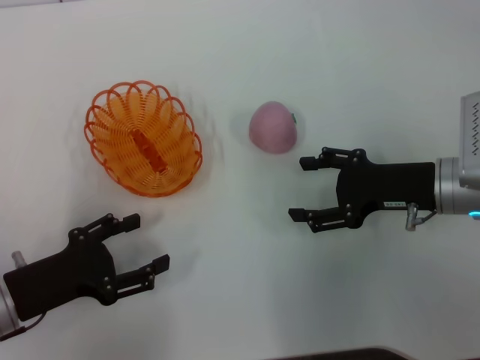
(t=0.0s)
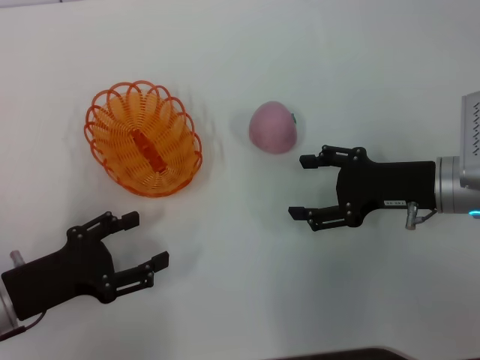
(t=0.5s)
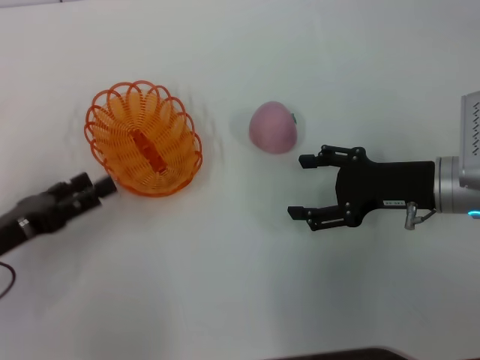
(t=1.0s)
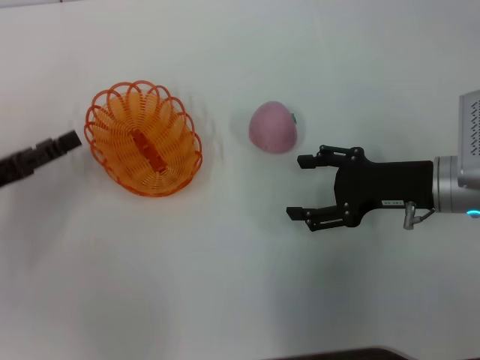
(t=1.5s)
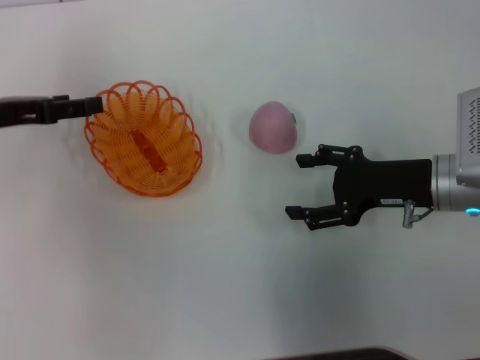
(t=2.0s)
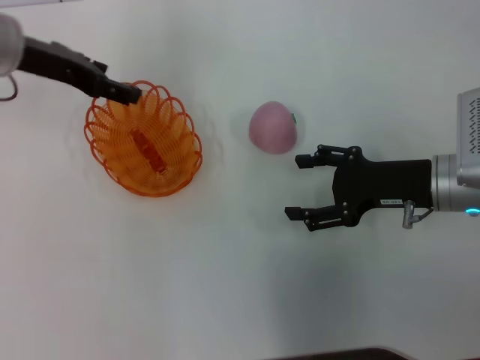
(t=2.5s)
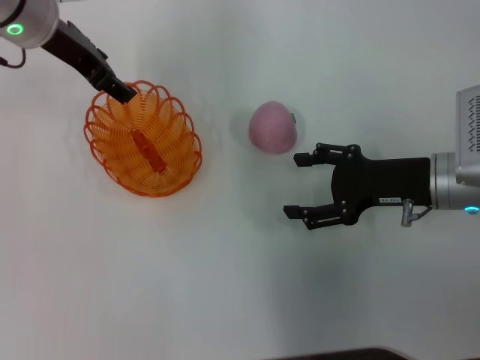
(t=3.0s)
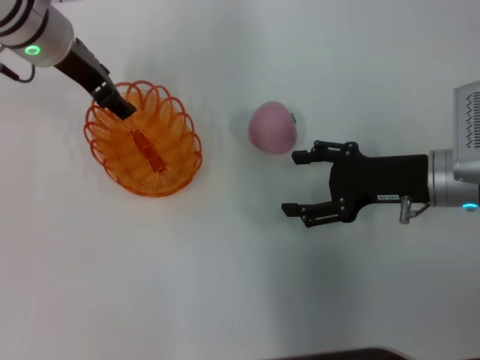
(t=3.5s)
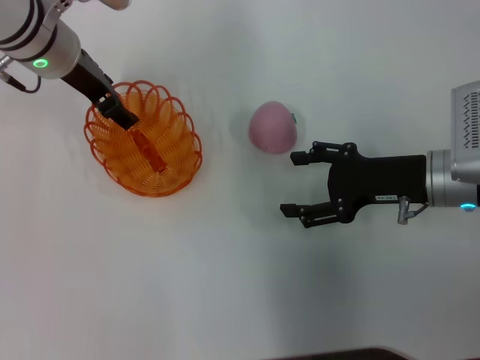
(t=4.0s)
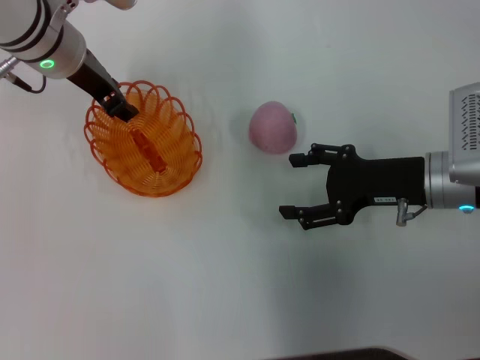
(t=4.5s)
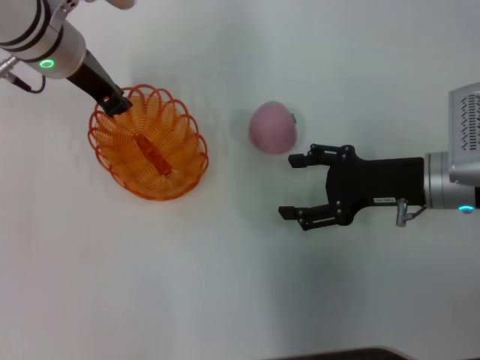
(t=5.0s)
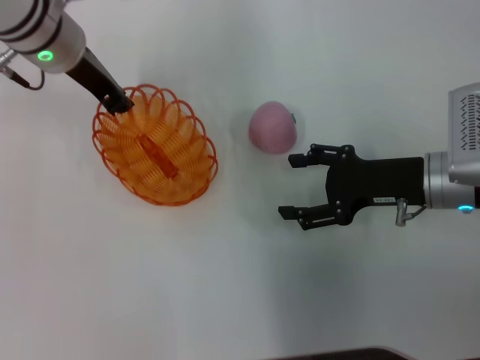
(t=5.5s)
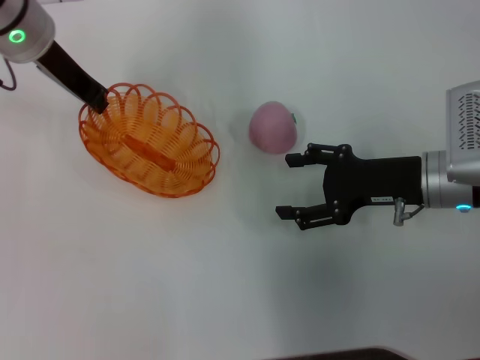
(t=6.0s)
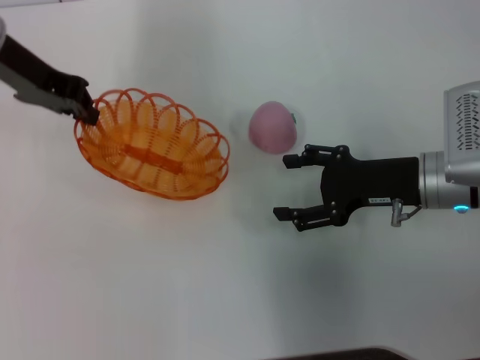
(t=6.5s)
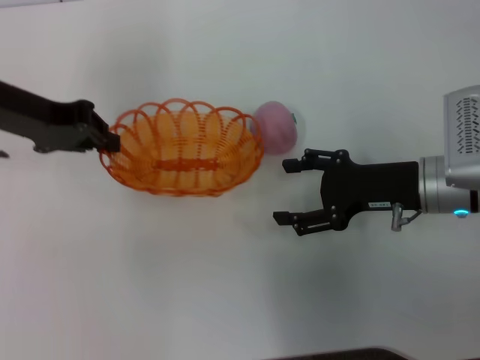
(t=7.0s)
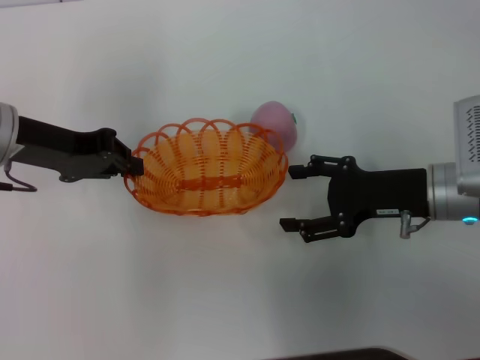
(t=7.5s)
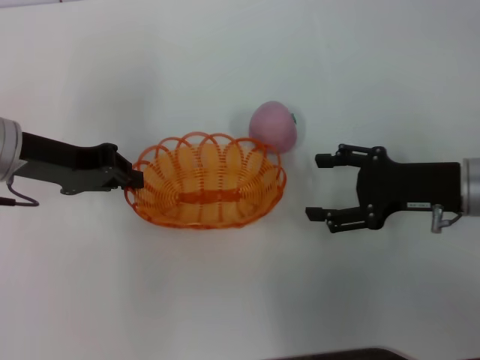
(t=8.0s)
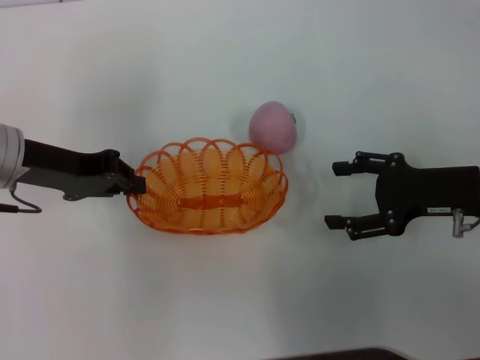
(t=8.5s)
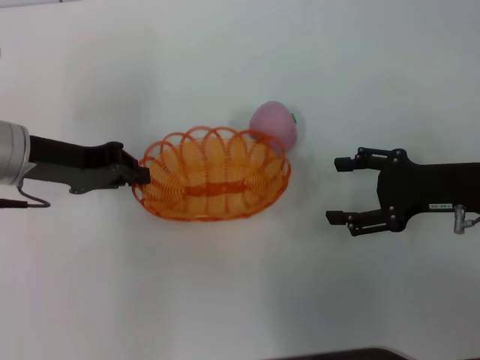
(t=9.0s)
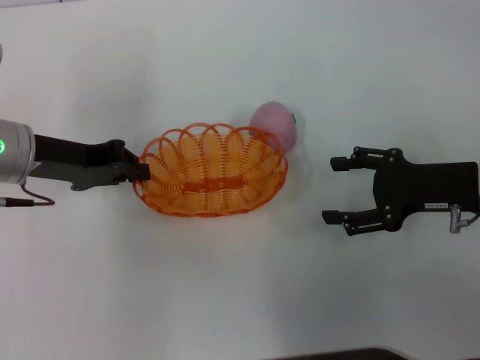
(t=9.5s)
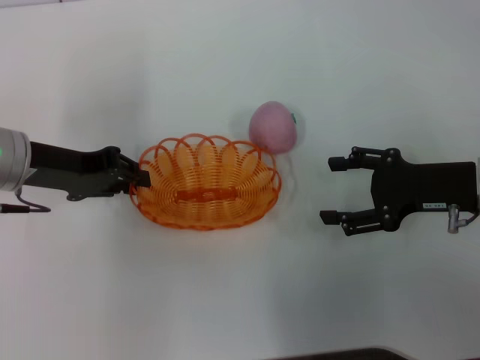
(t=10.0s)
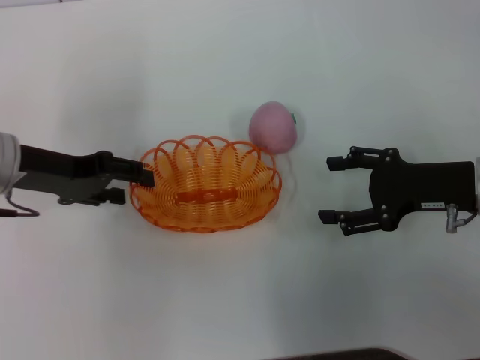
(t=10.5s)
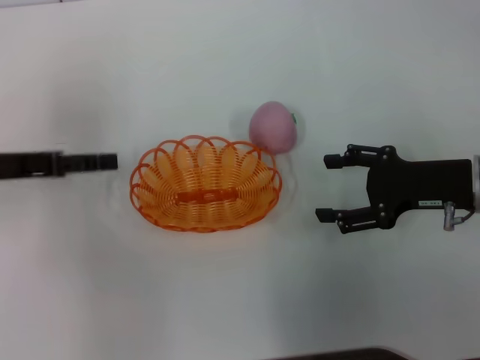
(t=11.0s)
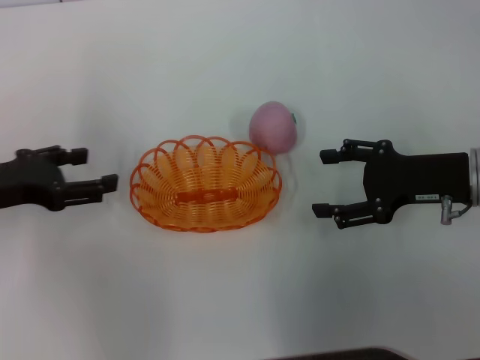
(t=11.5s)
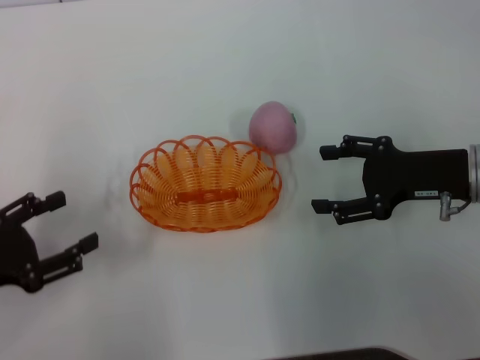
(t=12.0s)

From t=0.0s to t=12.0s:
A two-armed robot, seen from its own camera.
Step, from t=0.0s to t=6.0s: Pick up the basket with the left gripper.
Step, from t=6.5s to t=10.5s: Place the basket in the center of view with the left gripper.
From t=0.0s to t=2.0s: The left gripper travels forward and upward by about 20 cm.
From t=2.0s to t=4.0s: The left gripper heads to the right and forward, covering some 15 cm.
From t=4.0s to t=6.0s: The left gripper closes.
From t=6.0s to t=8.0s: The left gripper shifts approximately 10 cm backward, to the left and downward.
From t=8.0s to t=10.0s: The grippers stay close to where they were, moving slightly.
From t=10.0s to t=12.0s: The left gripper goes about 15 cm backward and to the left, and opens its fingers.

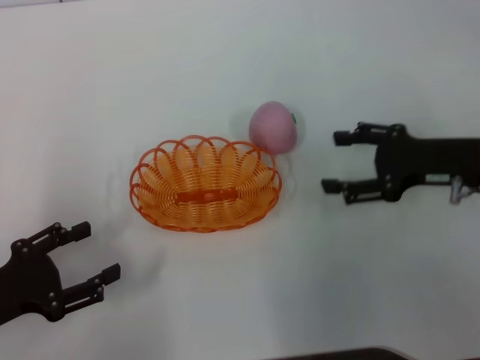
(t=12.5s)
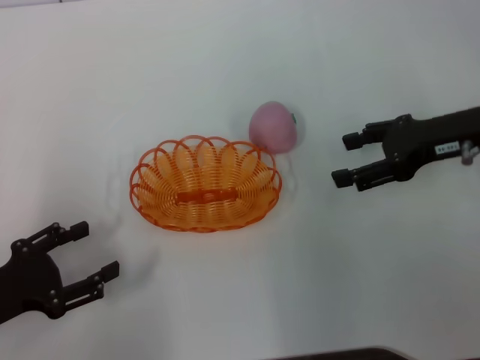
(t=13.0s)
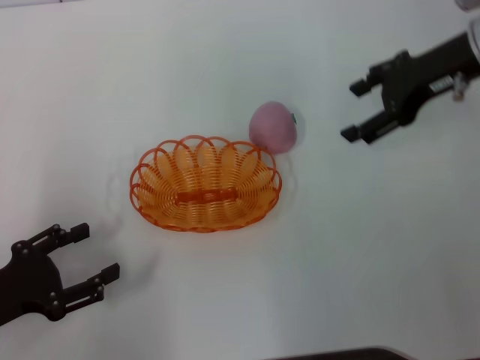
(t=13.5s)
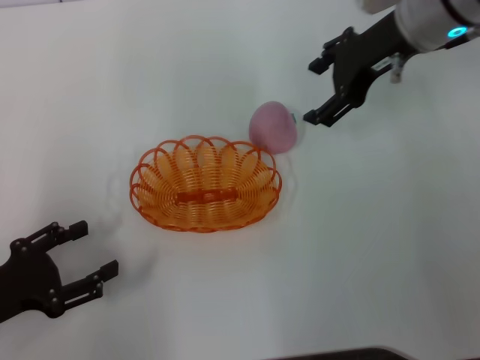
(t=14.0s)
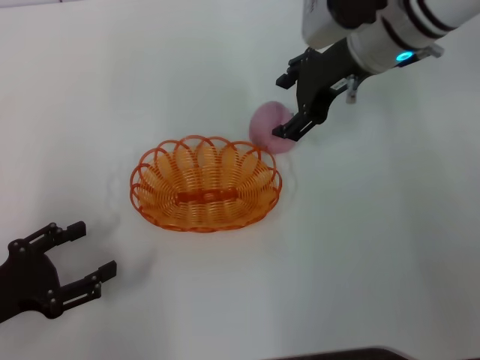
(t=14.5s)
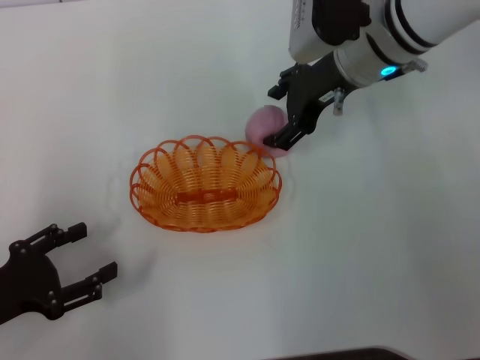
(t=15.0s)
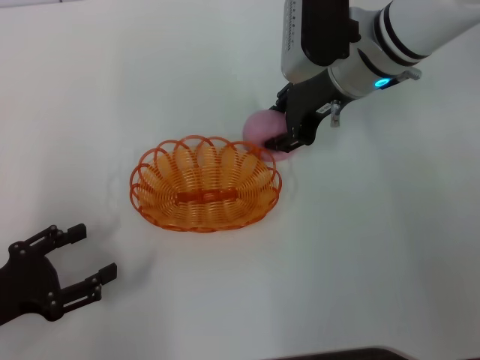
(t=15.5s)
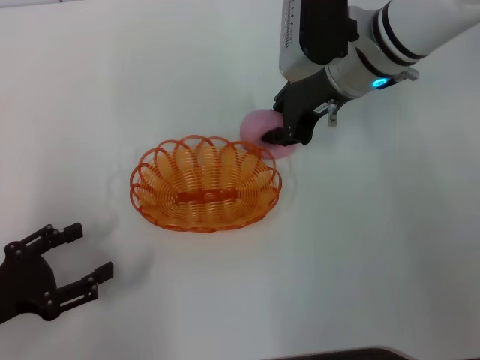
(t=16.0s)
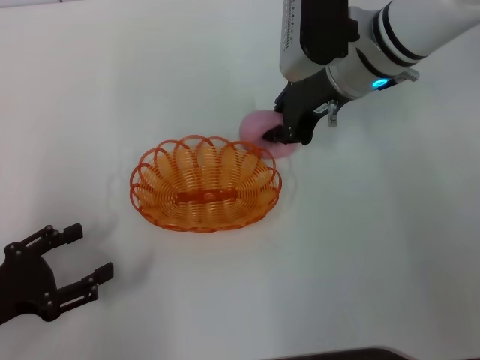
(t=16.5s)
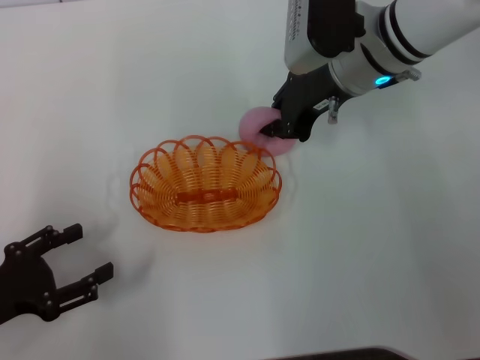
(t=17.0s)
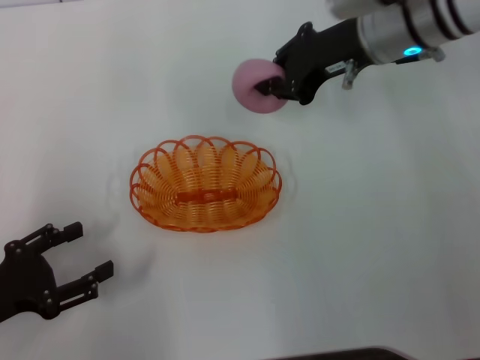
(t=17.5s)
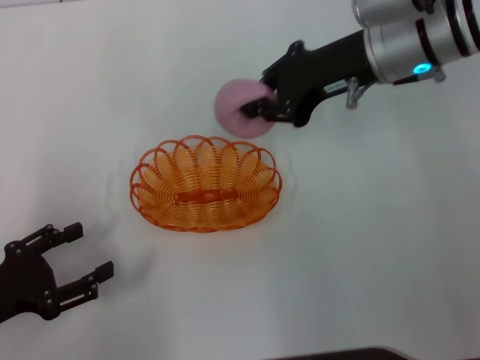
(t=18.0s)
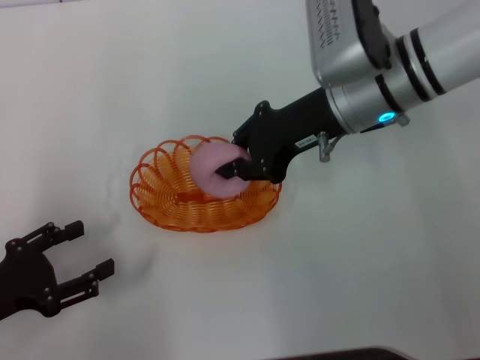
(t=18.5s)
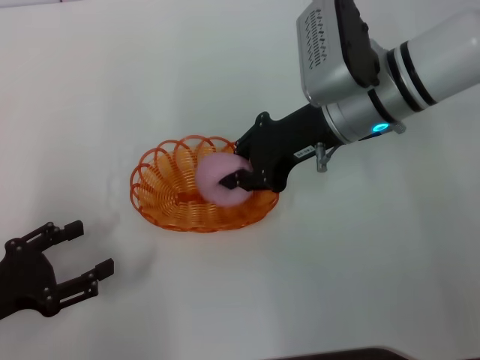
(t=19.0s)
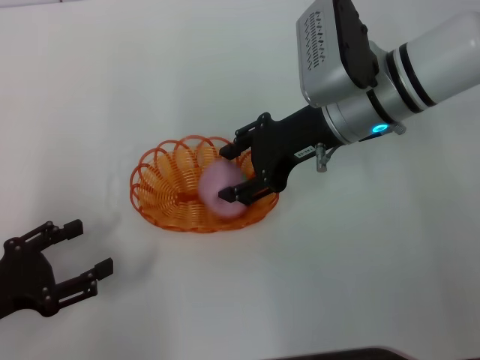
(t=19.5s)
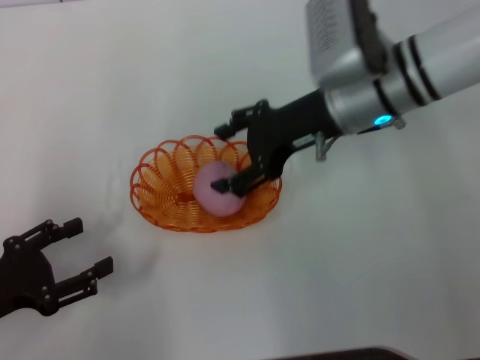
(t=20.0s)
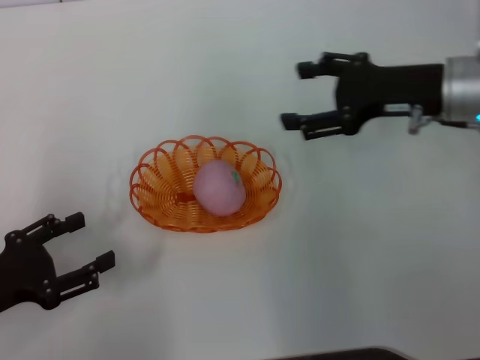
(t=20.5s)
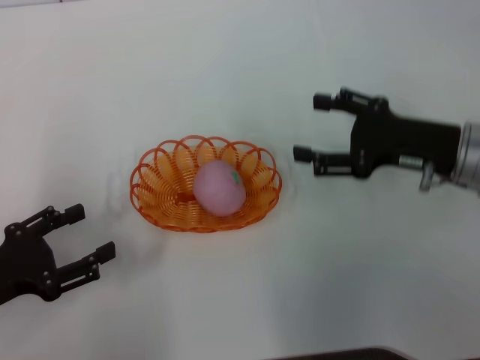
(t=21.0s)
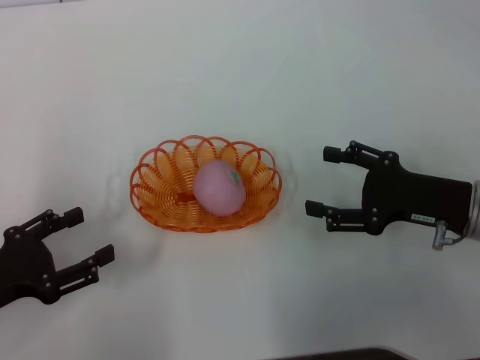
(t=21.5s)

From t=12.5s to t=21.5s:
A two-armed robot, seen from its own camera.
Step, from t=12.5s to t=17.5s: Pick up the peach with the right gripper.
Step, from t=18.0s to t=20.0s: Place the peach into the basket with the right gripper.
From t=12.5s to t=14.5s: The right gripper shifts roughly 20 cm to the left, forward and upward.
From t=14.5s to t=17.0s: The right gripper closes its fingers.
From t=19.5s to t=21.5s: The right gripper shifts some 20 cm to the right, backward and downward, and opens its fingers.
